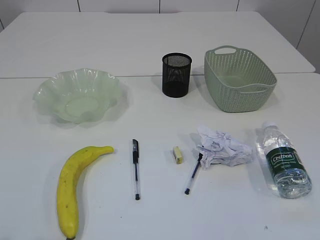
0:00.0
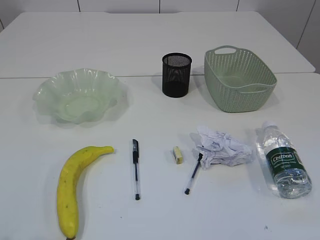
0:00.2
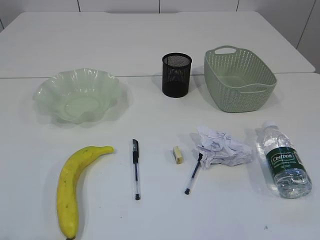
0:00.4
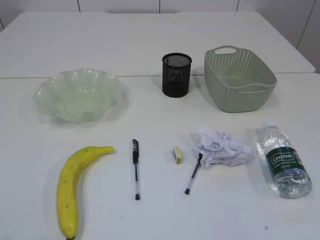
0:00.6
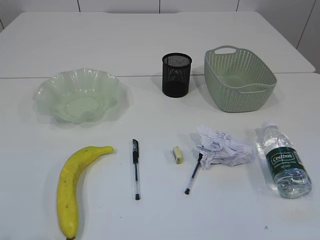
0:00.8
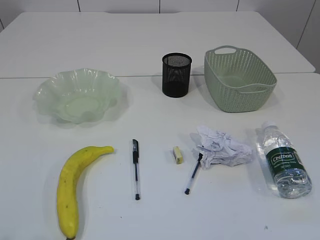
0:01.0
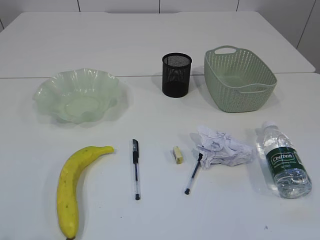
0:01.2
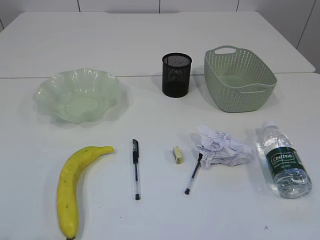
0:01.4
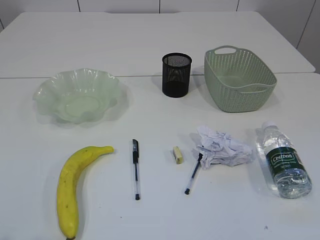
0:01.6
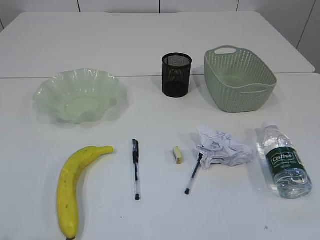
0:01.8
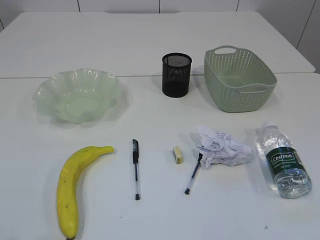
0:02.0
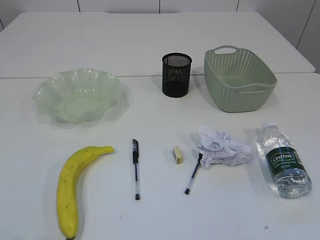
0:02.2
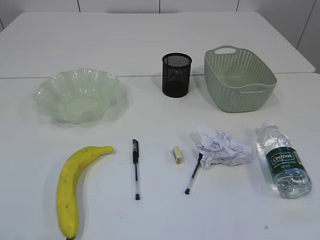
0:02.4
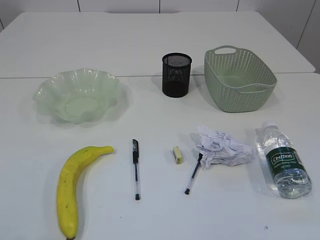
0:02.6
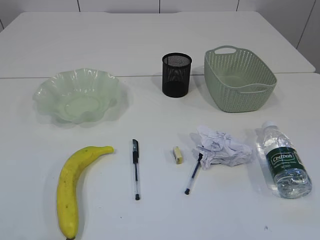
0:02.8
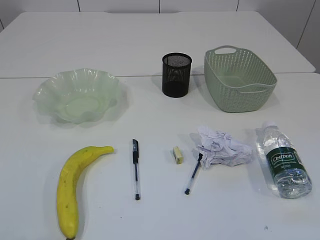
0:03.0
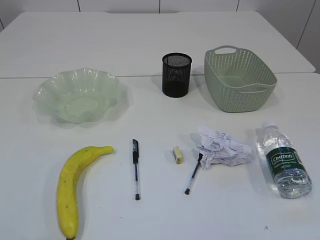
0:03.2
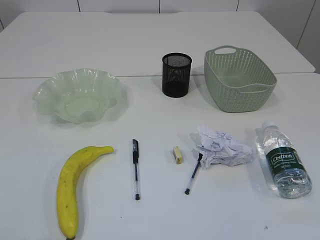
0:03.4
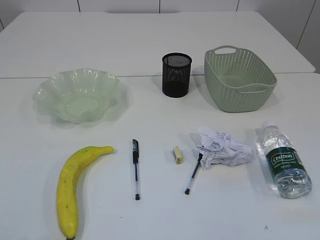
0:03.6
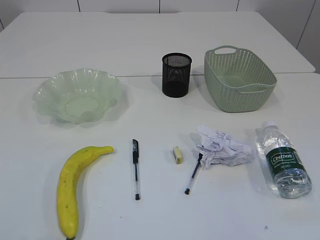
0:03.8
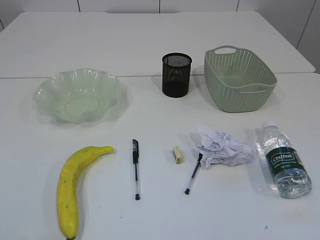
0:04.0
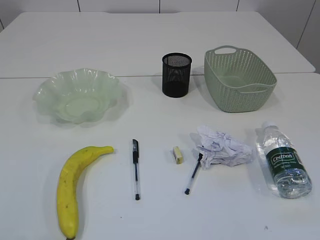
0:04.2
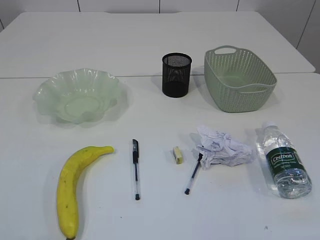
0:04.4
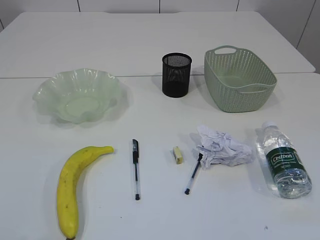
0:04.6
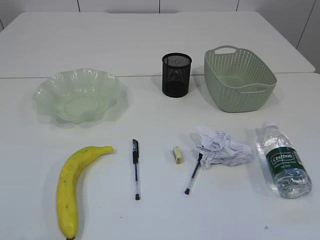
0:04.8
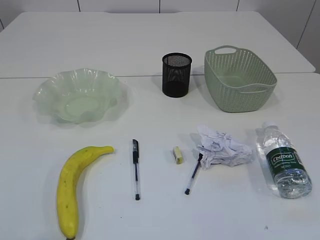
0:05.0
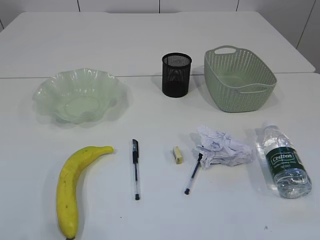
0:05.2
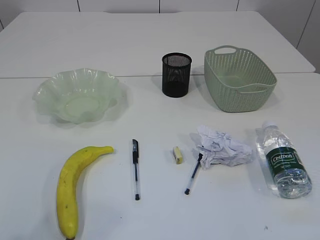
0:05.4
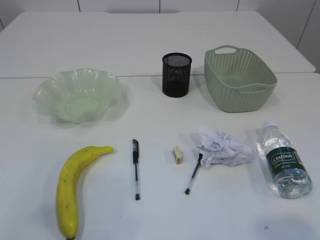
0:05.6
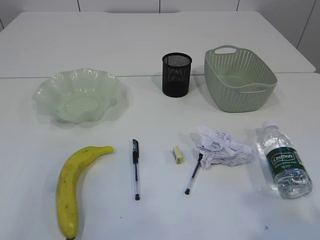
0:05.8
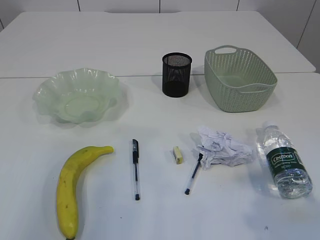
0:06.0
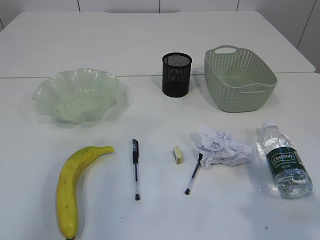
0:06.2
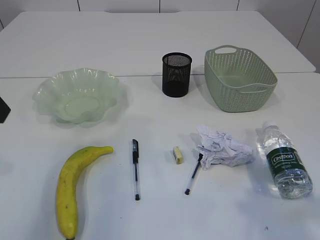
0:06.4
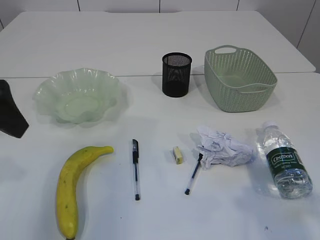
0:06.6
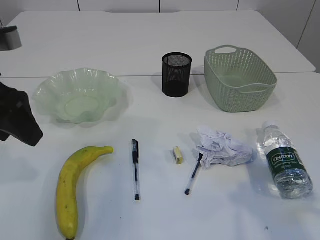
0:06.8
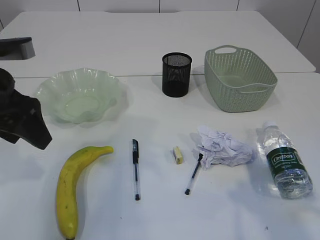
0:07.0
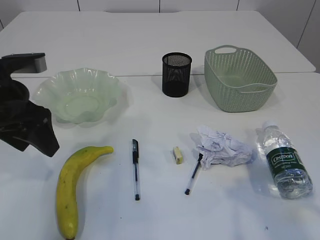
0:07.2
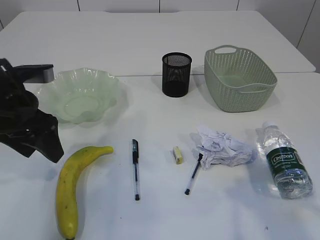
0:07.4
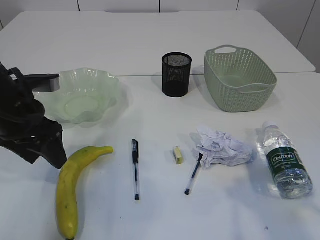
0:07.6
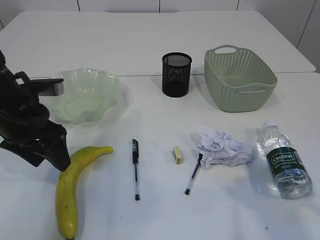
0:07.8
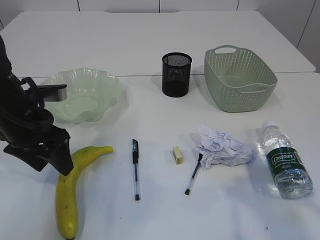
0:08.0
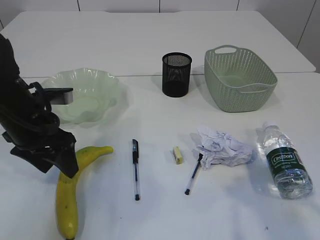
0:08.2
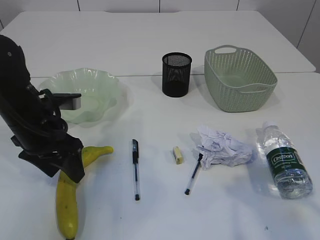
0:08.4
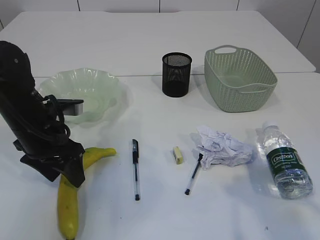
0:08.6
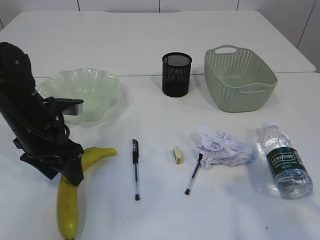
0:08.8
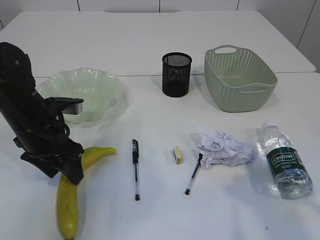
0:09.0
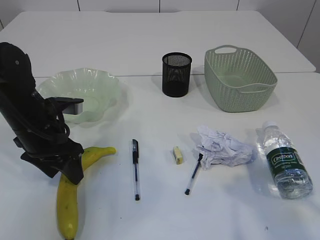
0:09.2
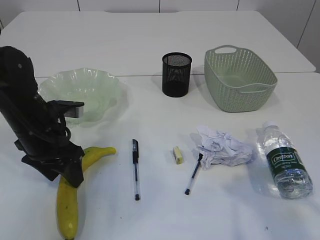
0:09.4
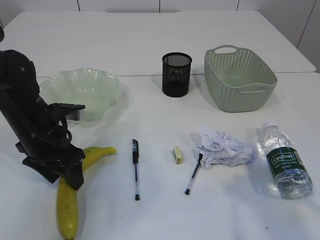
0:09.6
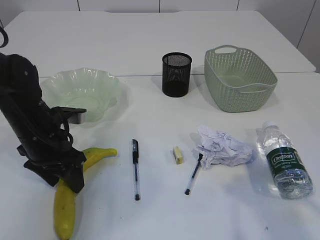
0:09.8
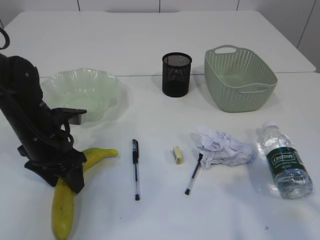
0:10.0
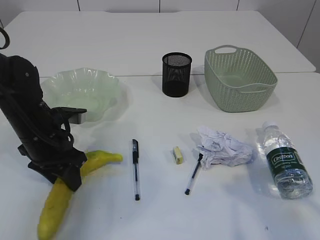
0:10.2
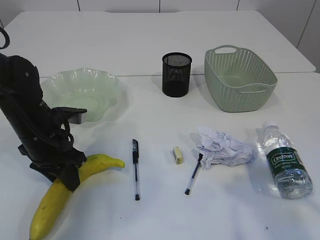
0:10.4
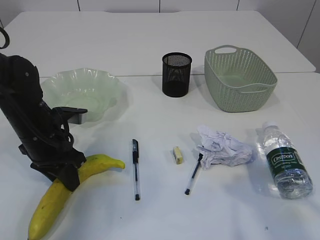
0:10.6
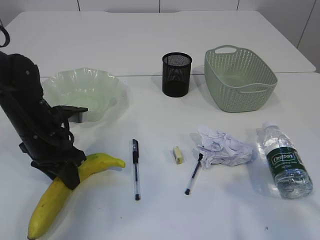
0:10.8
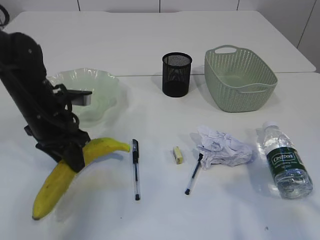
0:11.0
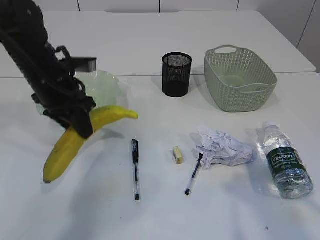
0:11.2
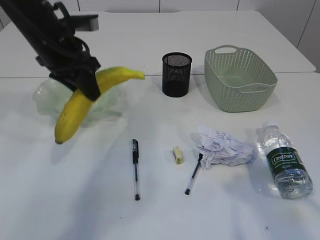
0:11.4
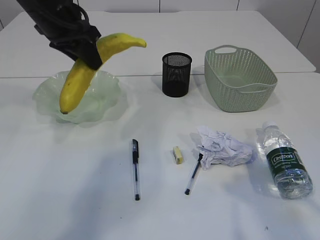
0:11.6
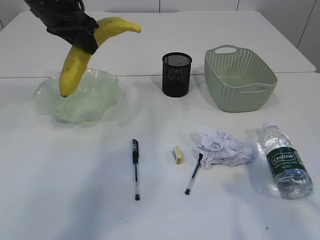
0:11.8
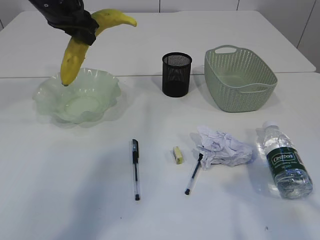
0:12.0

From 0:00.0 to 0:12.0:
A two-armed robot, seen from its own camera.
From 0:03.0 to 0:04.4: Neither gripper changes place.
From 0:04.4 to 0:06.0: The grippers both shift forward and upward by approximately 15 cm.
From 0:06.0 to 0:07.6: The left gripper goes about 20 cm downward and forward.
From 0:07.6 to 0:09.0: The left gripper is displaced downward by about 5 cm.
From 0:09.0 to 0:10.4: The left gripper closes.
From 0:10.4 to 0:12.0: The left gripper moves upward and forward, about 20 cm.

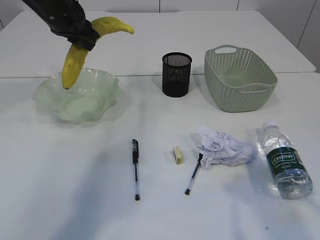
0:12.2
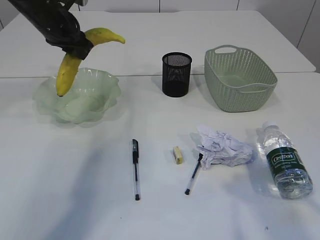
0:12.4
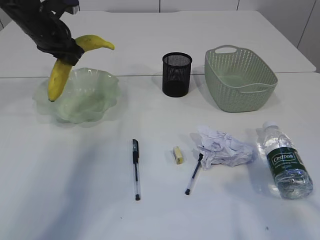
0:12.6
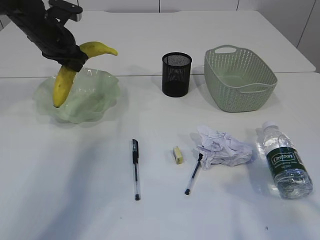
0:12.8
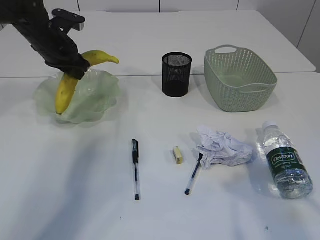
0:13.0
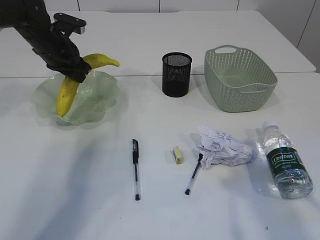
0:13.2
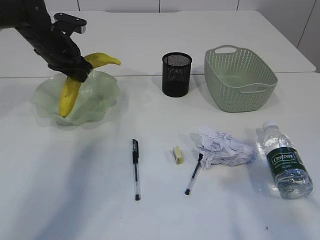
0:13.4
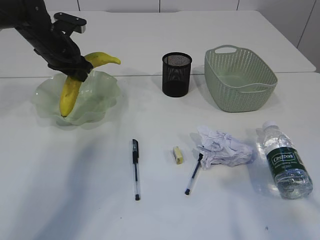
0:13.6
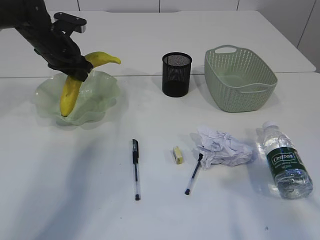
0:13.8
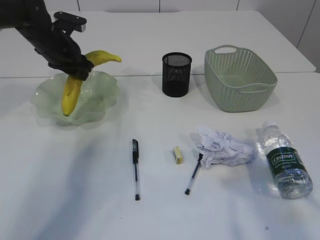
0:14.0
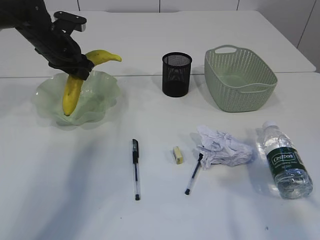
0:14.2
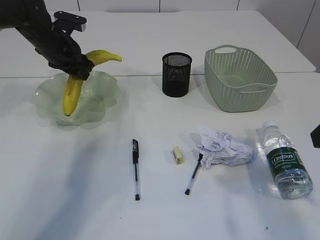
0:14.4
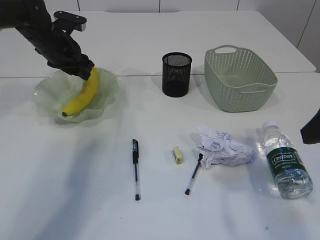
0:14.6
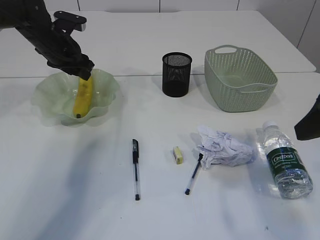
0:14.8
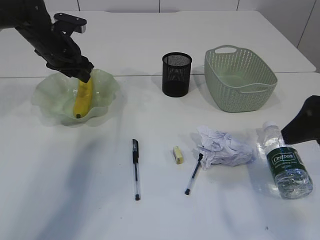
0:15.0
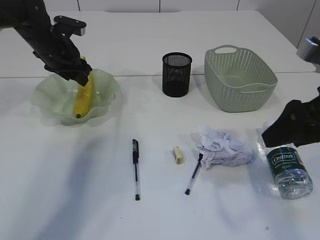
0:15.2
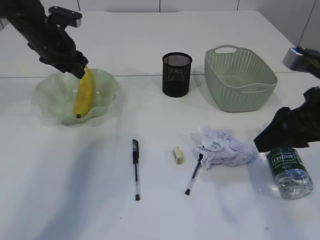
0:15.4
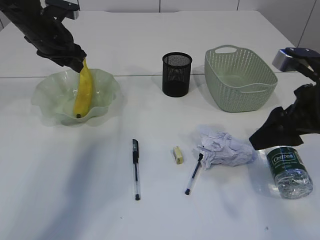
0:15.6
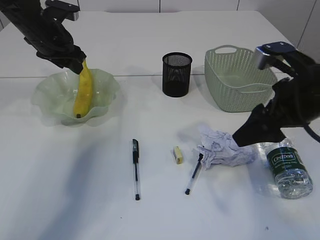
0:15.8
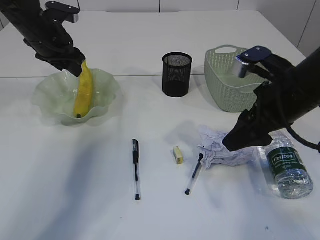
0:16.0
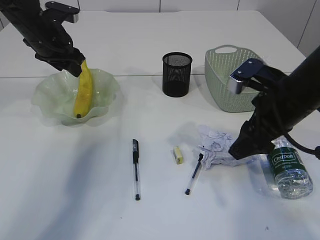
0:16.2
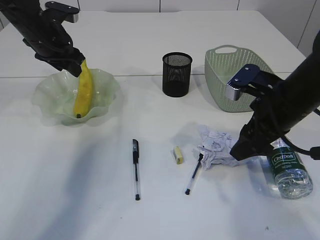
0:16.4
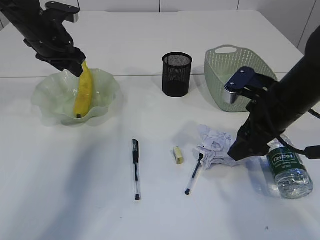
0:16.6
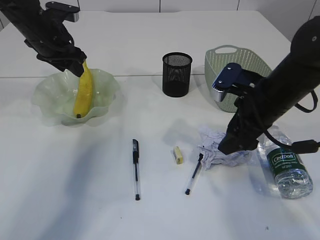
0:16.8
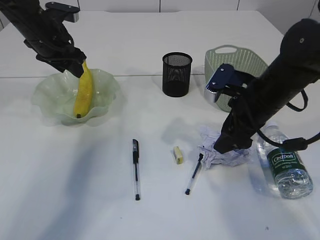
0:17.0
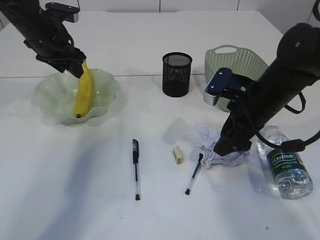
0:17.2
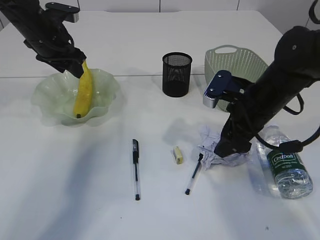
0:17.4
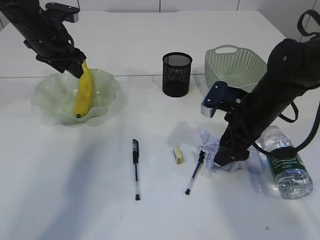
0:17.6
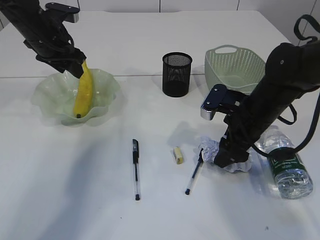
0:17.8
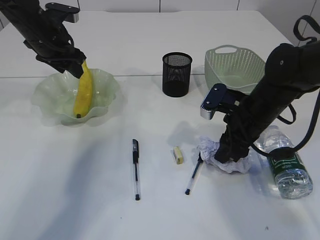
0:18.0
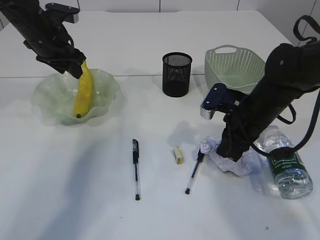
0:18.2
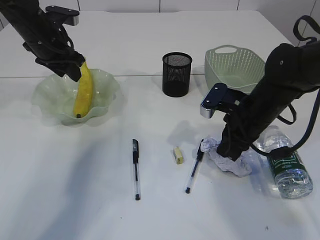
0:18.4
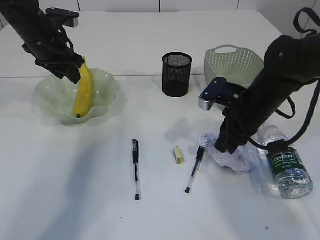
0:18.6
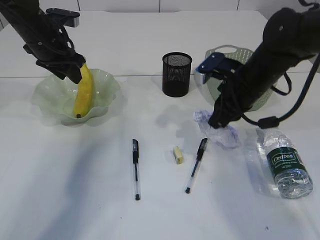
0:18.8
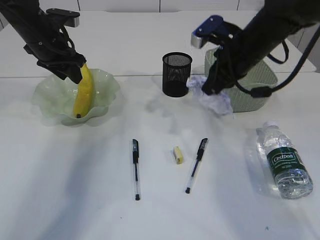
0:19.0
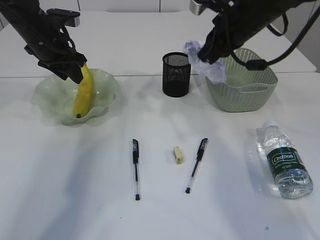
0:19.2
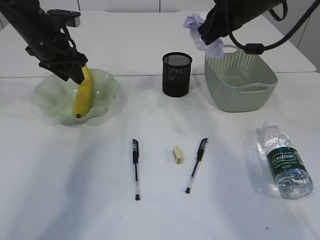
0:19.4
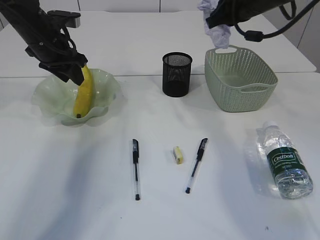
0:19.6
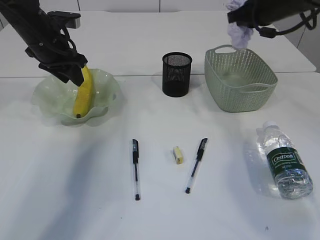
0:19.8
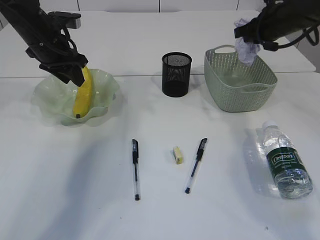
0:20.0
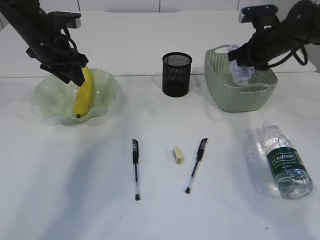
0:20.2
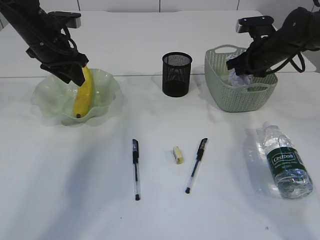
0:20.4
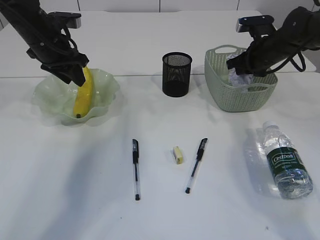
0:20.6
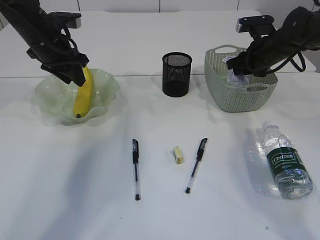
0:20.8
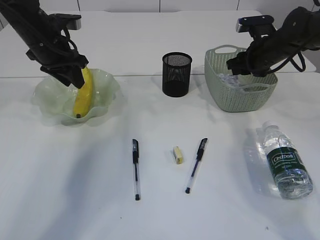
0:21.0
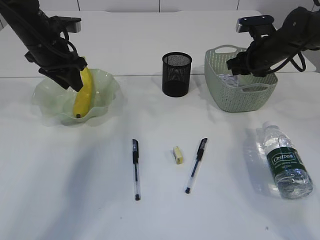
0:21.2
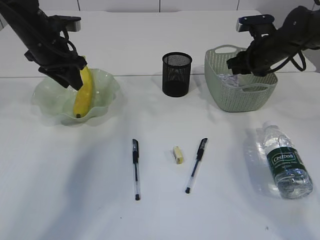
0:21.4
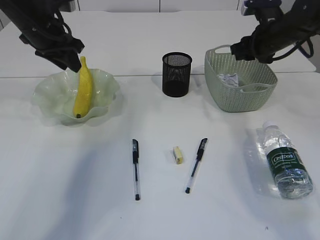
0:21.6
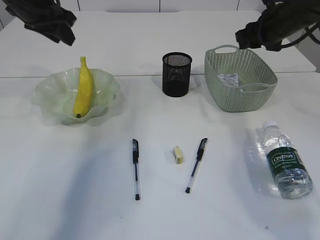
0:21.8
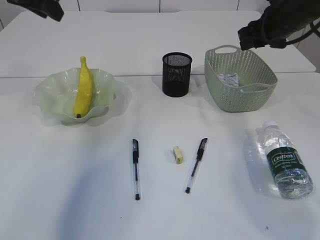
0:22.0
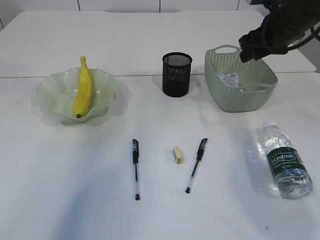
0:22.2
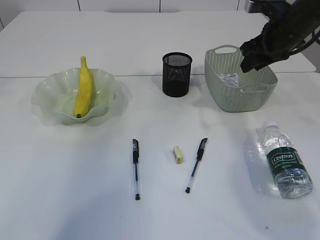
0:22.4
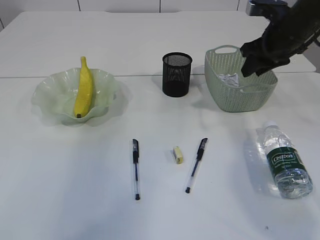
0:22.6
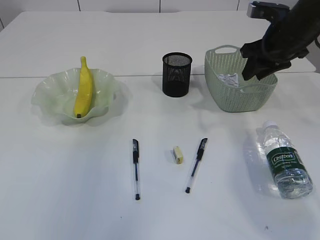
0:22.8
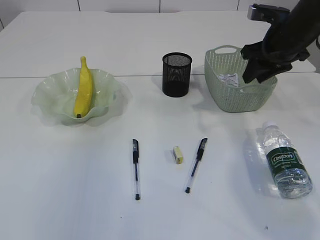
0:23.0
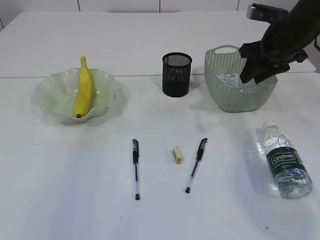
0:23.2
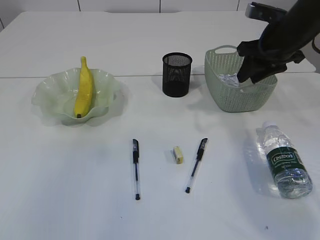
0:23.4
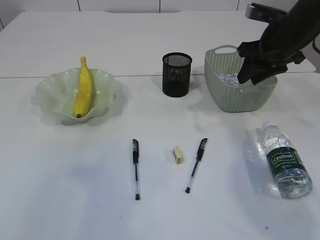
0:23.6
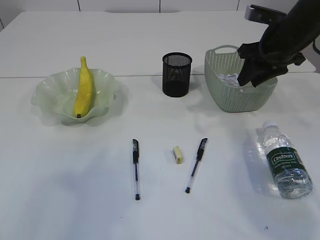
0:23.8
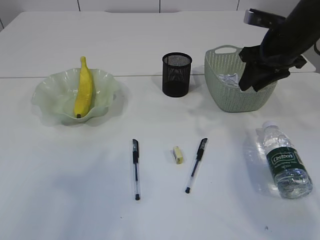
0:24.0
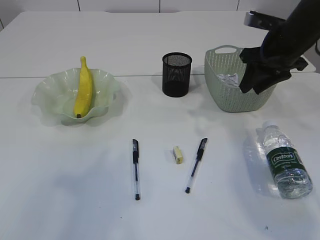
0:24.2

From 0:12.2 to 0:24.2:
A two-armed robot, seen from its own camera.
Step, from 0:12.2 to 0:15.4: Place the banana in the plate.
Step, from 0:15.6 to 0:18.8: Pick up the waste paper.
Step, from 0:19.0 to 0:21.6: Place the waste paper in the basket.
From 0:12.2 to 0:13.8: The left gripper shifts approximately 10 cm downward.
From 0:13.8 to 0:15.2: The right gripper is displaced forward by approximately 5 cm.
From 0:15.2 to 0:16.6: The right gripper heads forward and downward, covering about 10 cm.
From 0:16.6 to 0:18.2: The right gripper ends up approximately 5 cm from where it was, and closes.
From 0:18.2 to 0:19.8: The right gripper is displaced upward and forward by roughly 20 cm.
From 0:19.8 to 0:21.2: The right gripper shifts approximately 10 cm downward, and opens.
From 0:21.2 to 0:22.6: The left gripper goes roughly 35 cm upward and backward. The right gripper shifts about 10 cm upward and backward.
